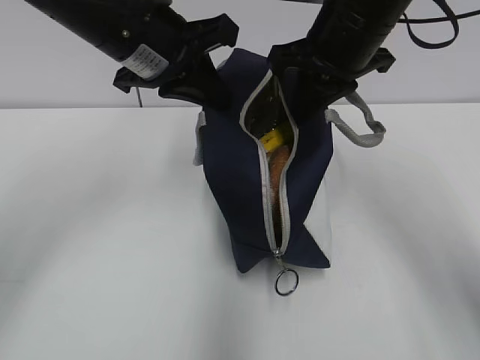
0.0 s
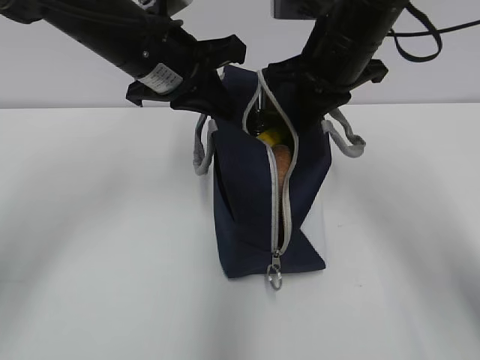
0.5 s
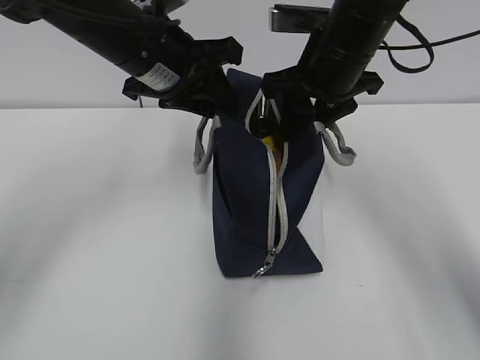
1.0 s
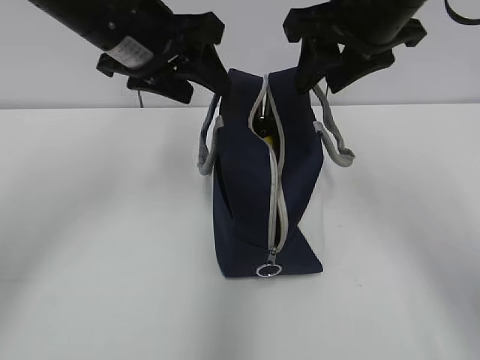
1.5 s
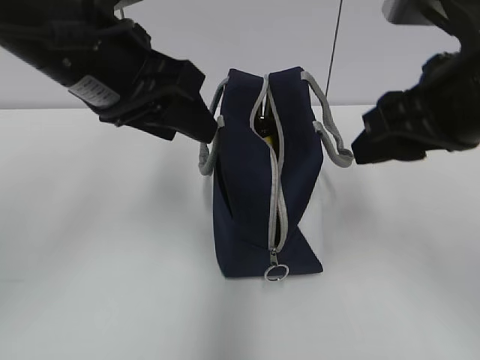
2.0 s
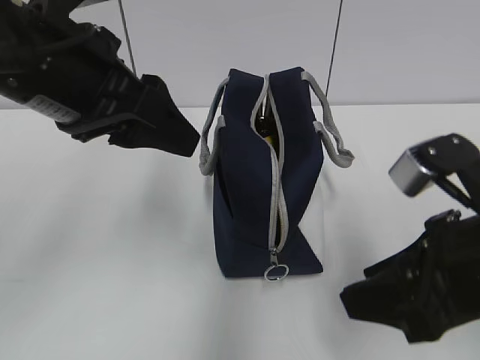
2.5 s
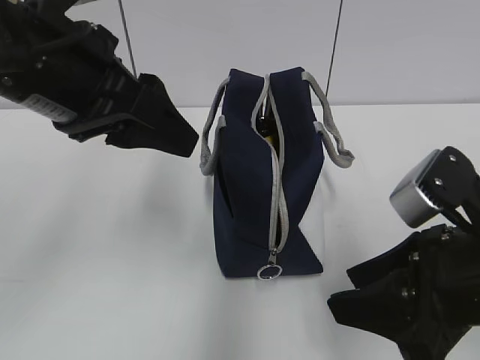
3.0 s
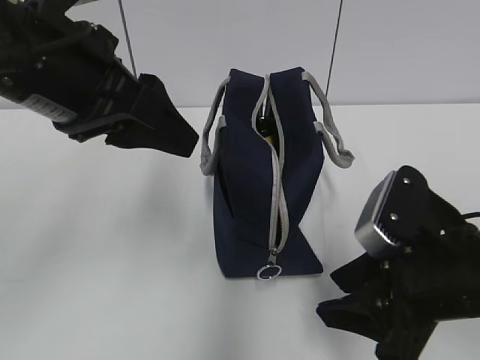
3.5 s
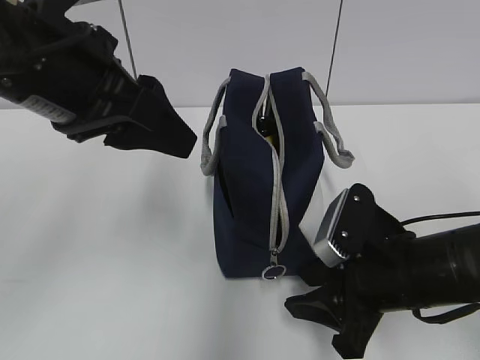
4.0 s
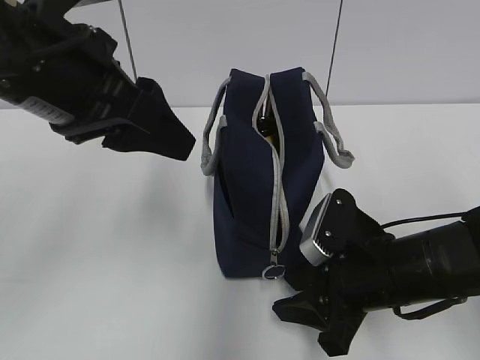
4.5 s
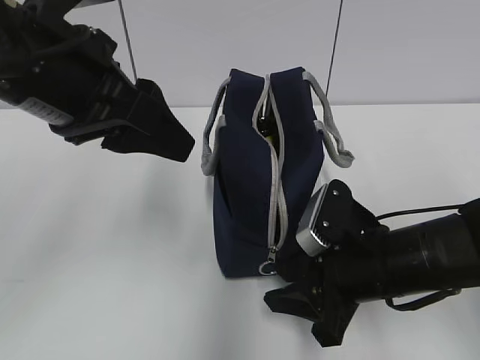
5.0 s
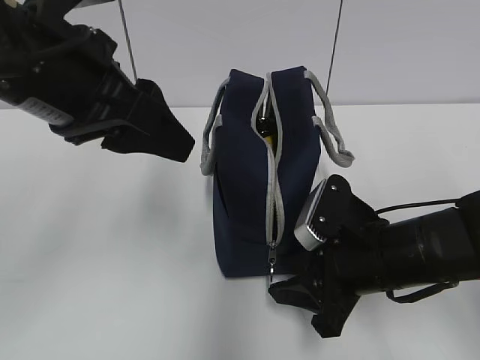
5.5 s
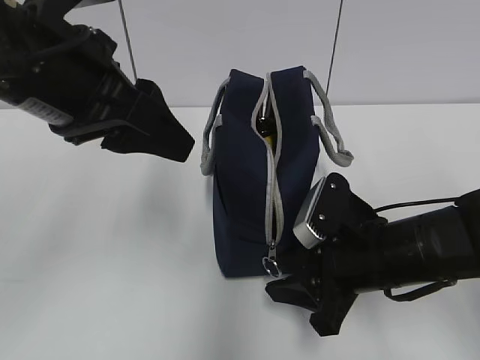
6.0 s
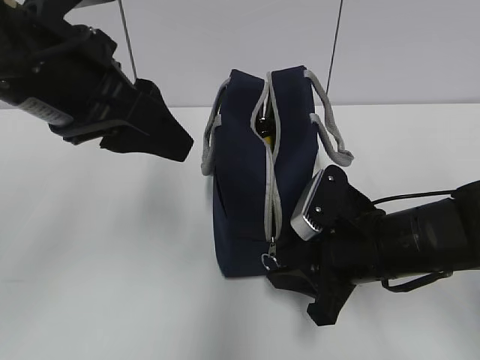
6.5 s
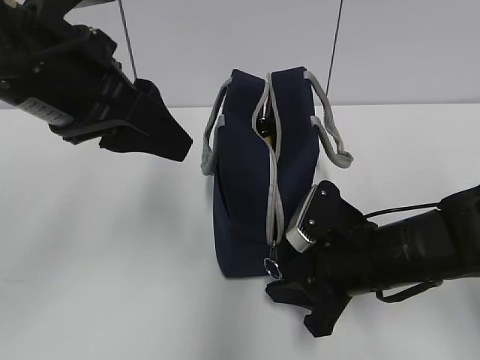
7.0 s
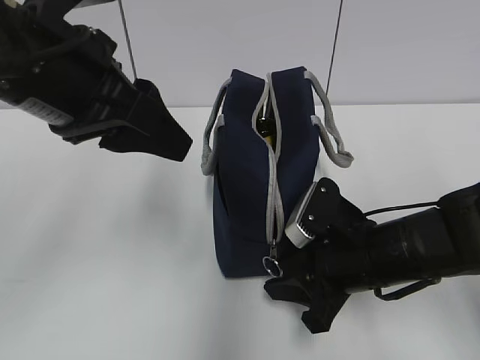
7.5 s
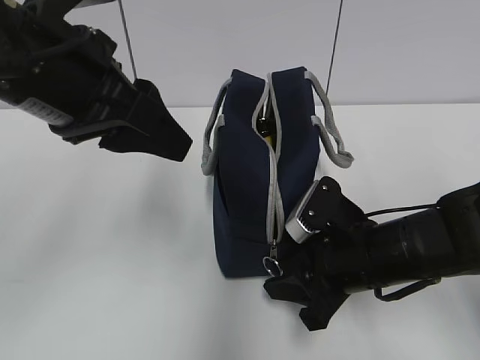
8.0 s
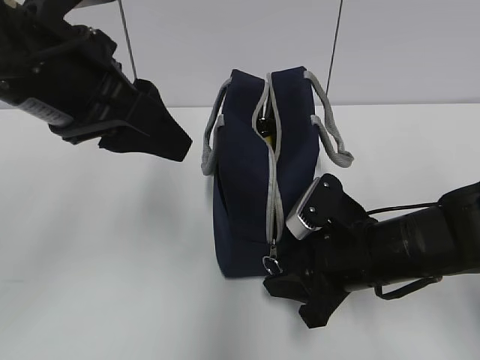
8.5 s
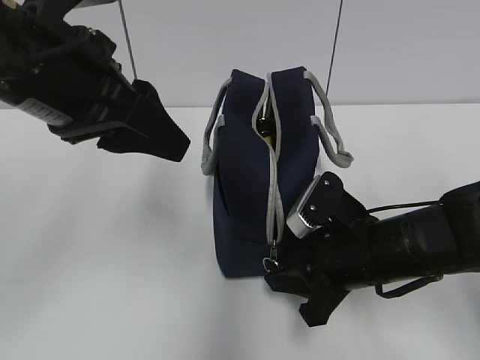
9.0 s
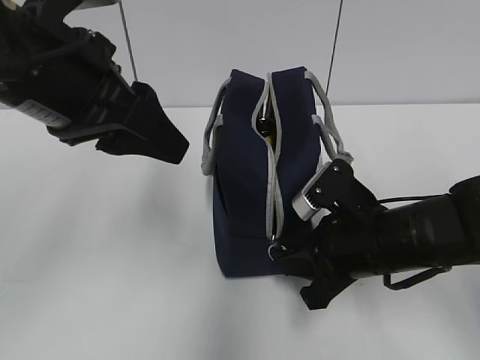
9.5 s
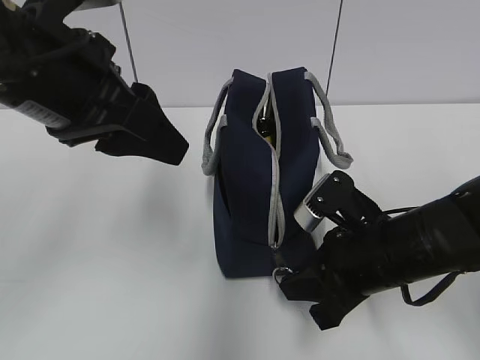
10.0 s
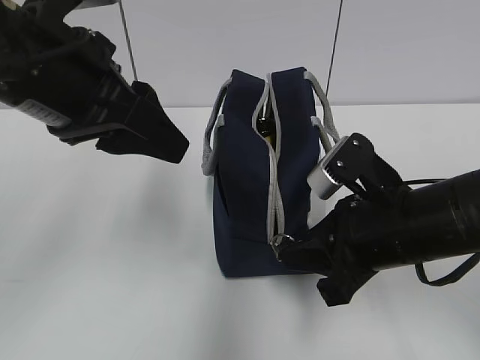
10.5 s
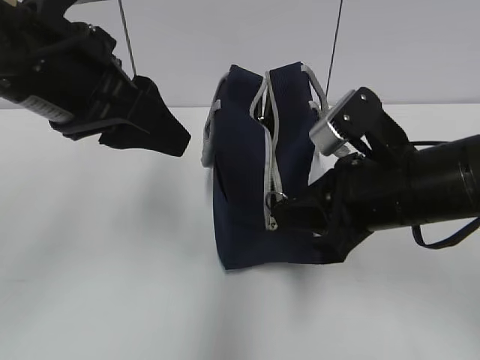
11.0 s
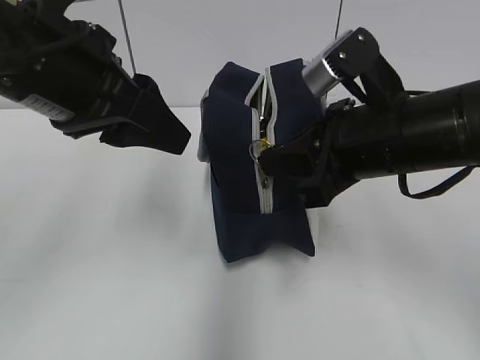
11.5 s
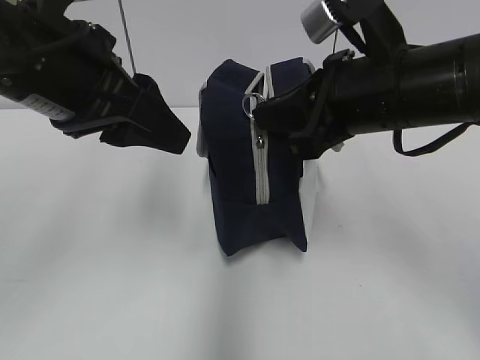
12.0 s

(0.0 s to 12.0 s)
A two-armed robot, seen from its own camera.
Step, 0.0 s - 1.0 s: Move the lunch bag to the right.
0.0 s - 2.0 s: The right gripper goes about 15 cm backward and to the right, and opens. Meanwhile the left gripper moves backward, about 5 cm, and opens up.
2.0 s - 4.0 s: The right gripper travels downward by about 15 cm.
4.0 s - 8.0 s: The grippers stay close to where they were, moving slightly.
8.0 s - 10.0 s: The right gripper closes up.
10.0 s - 12.0 s: The right gripper goes approximately 15 cm upward.

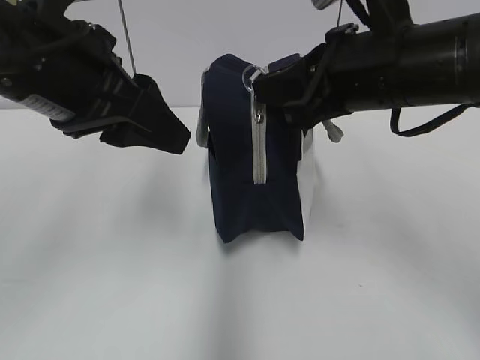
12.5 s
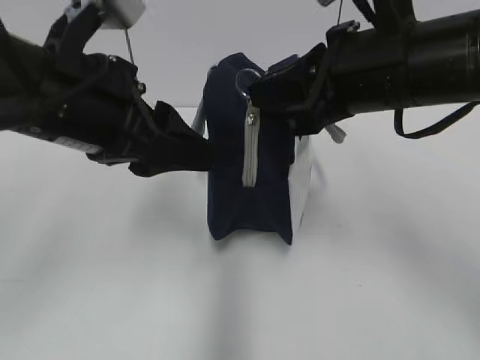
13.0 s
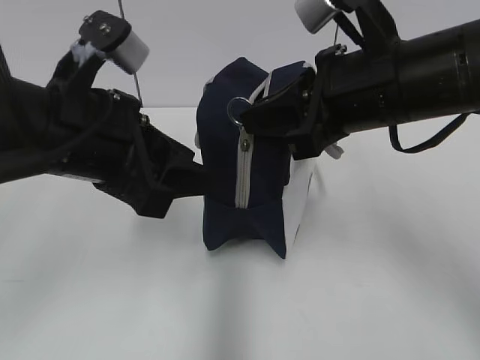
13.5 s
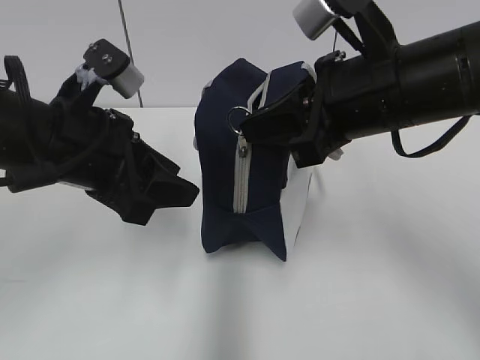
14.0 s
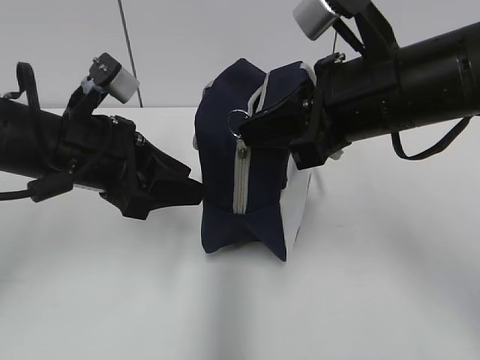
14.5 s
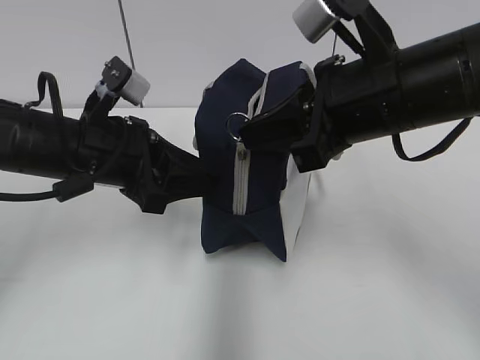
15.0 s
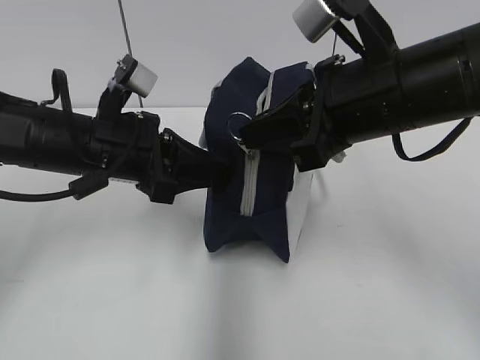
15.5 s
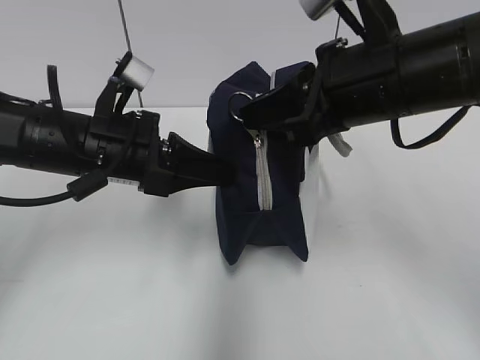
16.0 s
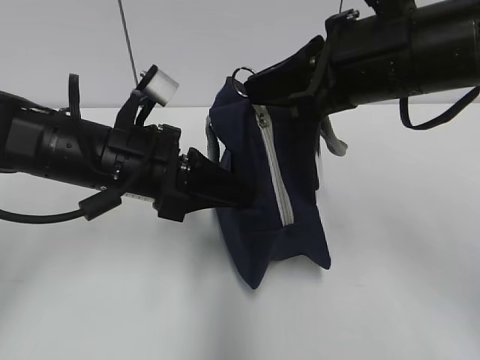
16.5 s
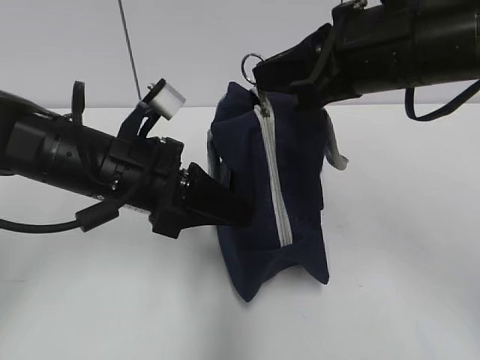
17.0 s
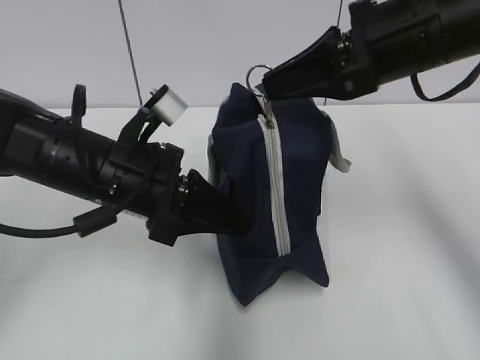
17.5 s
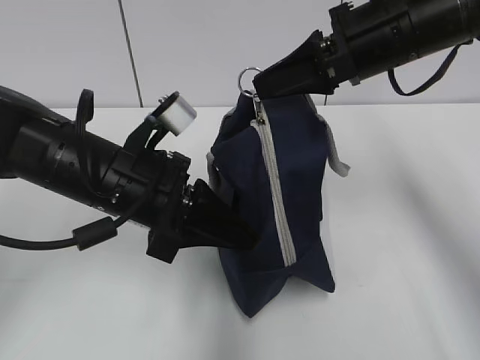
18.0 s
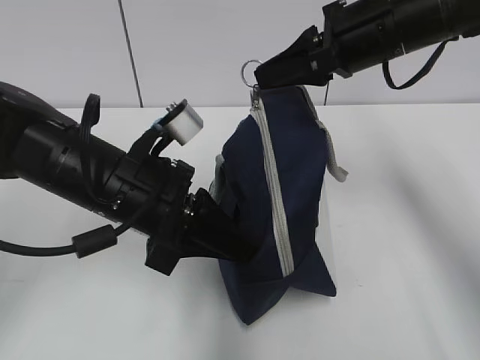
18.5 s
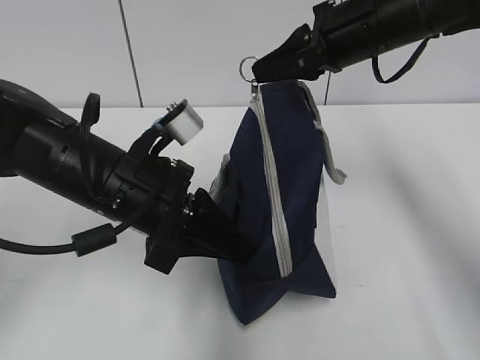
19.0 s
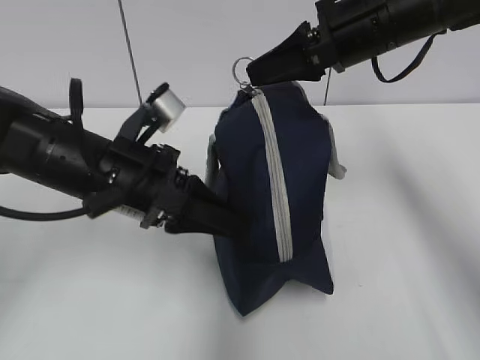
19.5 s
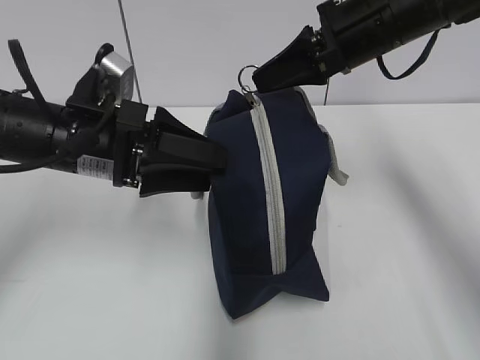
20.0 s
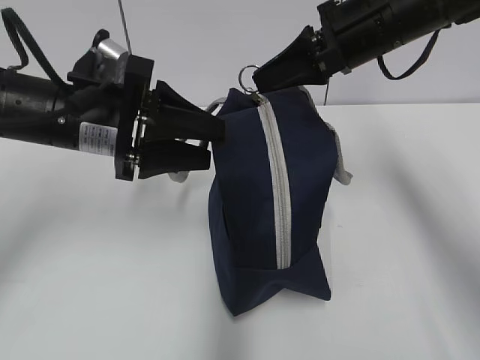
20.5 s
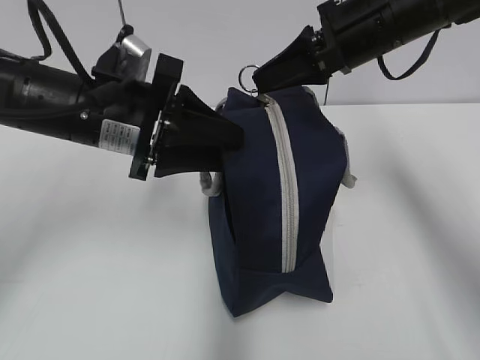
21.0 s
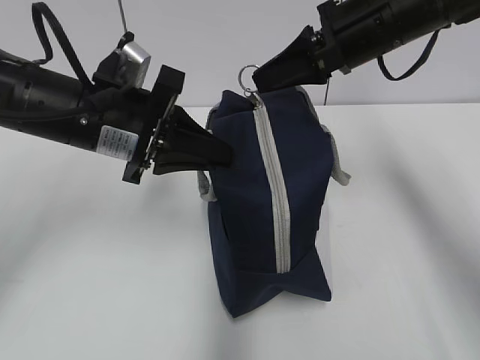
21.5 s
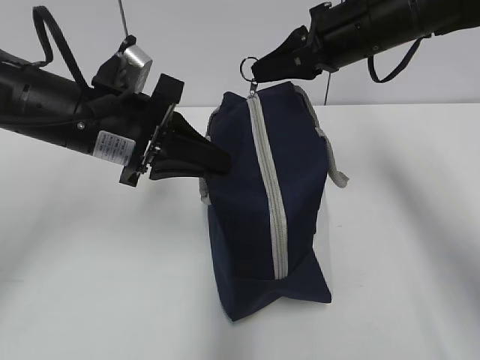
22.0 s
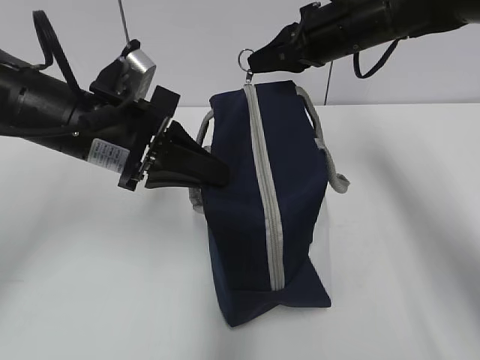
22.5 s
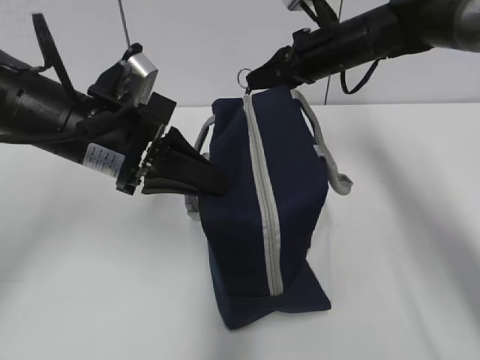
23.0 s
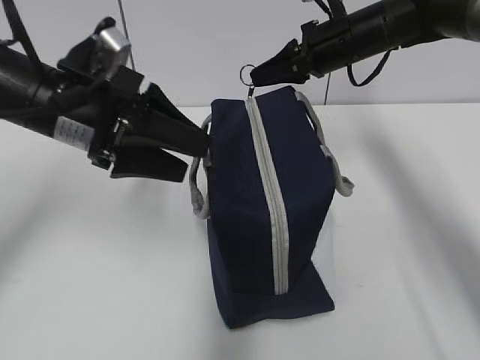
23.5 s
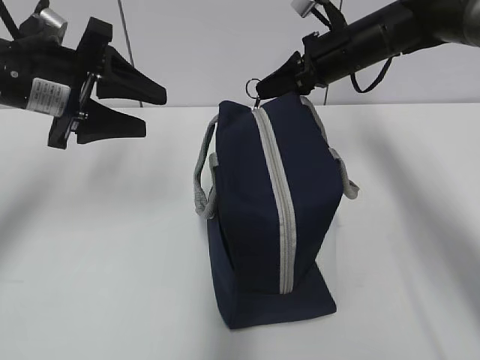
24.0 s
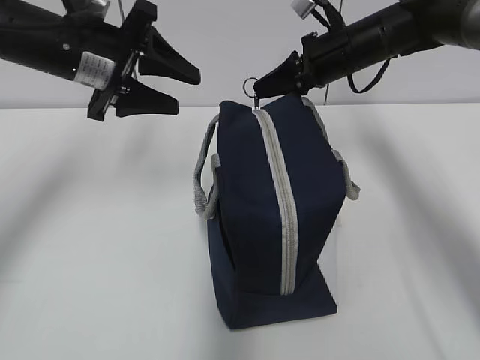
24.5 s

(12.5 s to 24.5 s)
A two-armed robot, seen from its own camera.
Step, 12.5 s - 15.5 s: Grab the lunch bag with your left hand.
12.5 s - 14.5 s: The left gripper is displaced downward by roughly 10 cm.
14.5 s - 16.5 s: The left gripper closes.
16.5 s - 18.5 s: The right gripper travels forward by about 10 cm.
18.5 s - 20.5 s: The left gripper shifts by about 10 cm, and opens.
20.5 s - 22.5 s: The left gripper closes its fingers. Meanwhile the right gripper goes some 5 cm forward.
22.5 s - 24.5 s: The left gripper is displaced forward by some 10 cm, and opens its fingers; the right gripper changes place by about 5 cm.

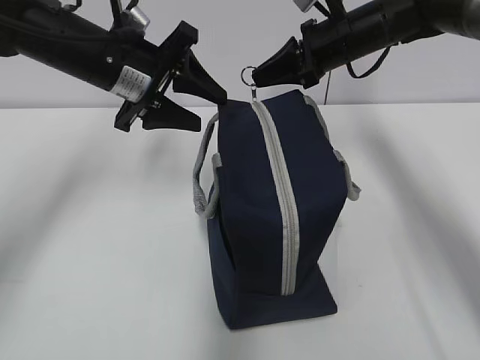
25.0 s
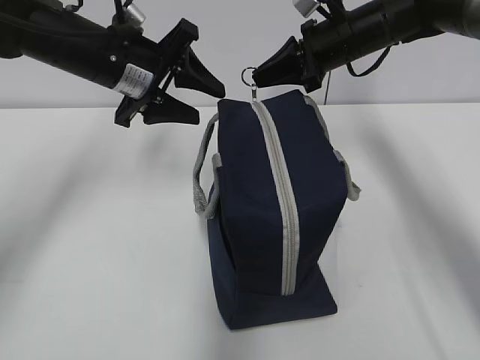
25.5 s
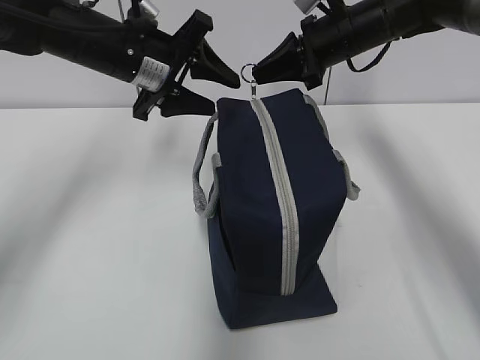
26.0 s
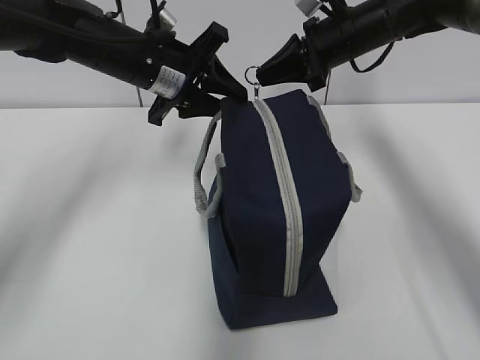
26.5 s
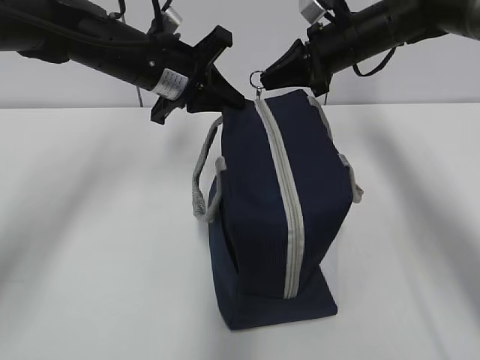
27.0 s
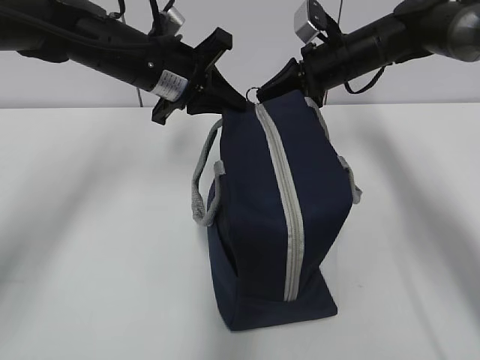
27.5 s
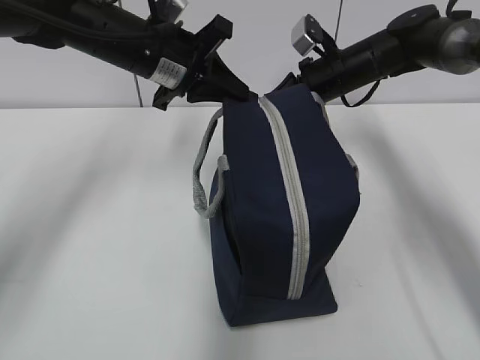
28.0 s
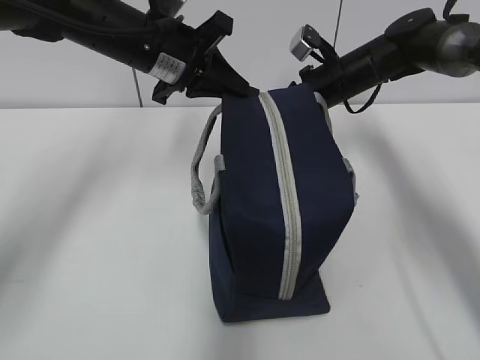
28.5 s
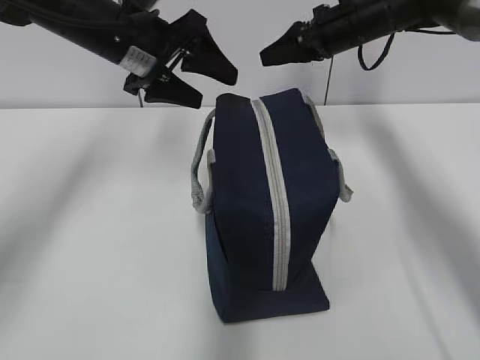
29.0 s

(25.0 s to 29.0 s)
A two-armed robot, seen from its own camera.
Step, 25.0 s - 28.5 s: Pull the zipper with your right hand.
25.0 s - 27.0 s: The left gripper closes.
27.0 s - 29.0 s: The left gripper opens its fingers; the right gripper opens.
